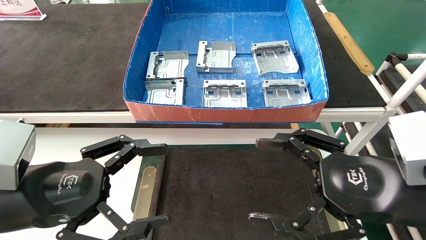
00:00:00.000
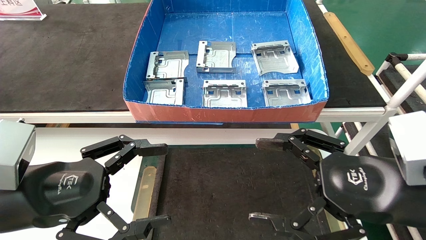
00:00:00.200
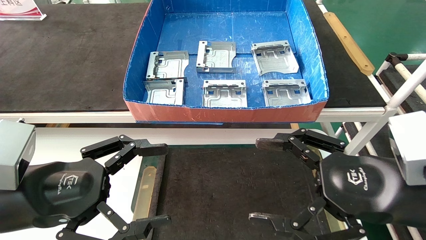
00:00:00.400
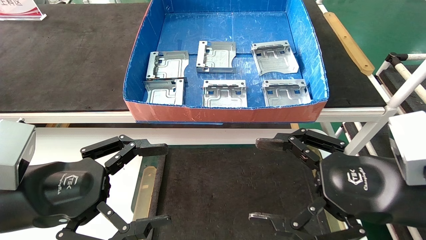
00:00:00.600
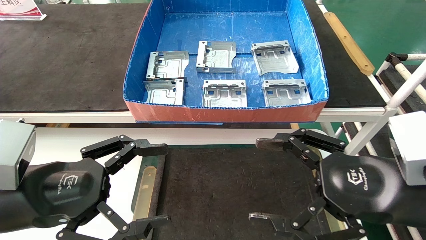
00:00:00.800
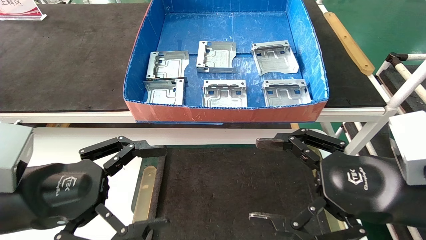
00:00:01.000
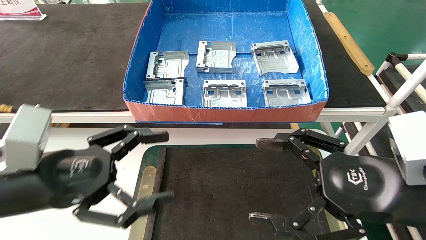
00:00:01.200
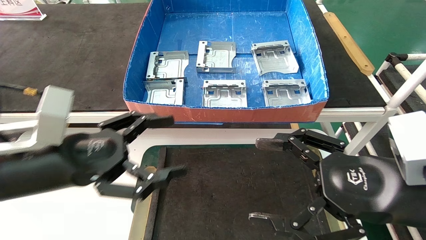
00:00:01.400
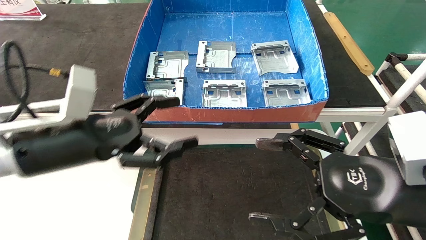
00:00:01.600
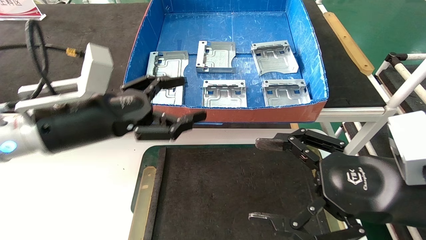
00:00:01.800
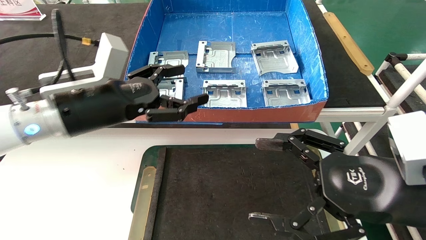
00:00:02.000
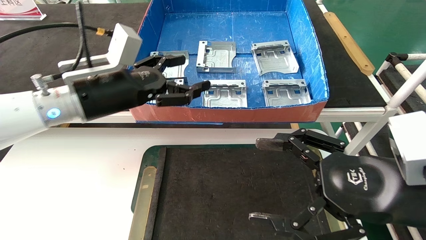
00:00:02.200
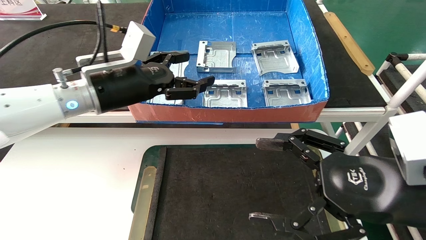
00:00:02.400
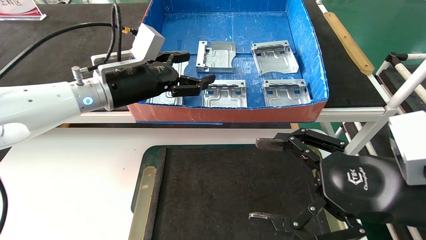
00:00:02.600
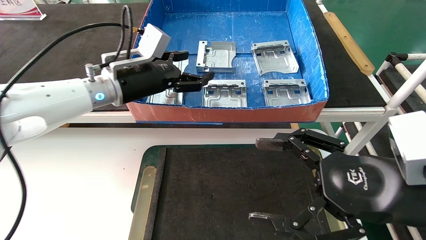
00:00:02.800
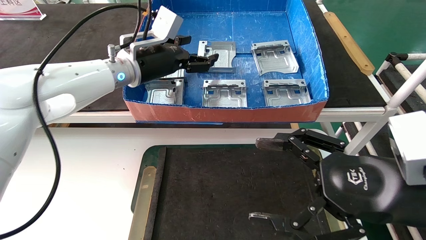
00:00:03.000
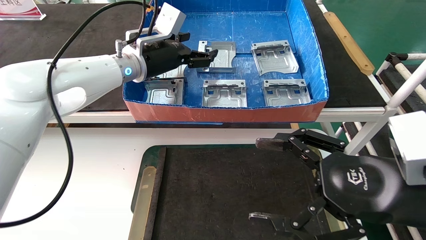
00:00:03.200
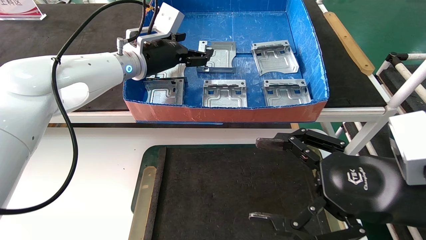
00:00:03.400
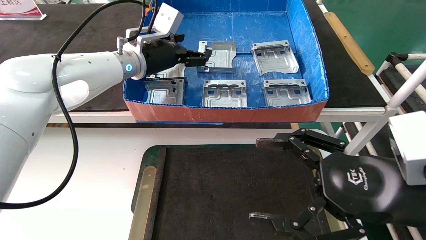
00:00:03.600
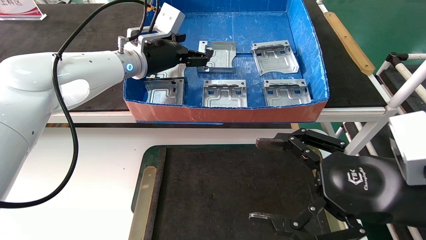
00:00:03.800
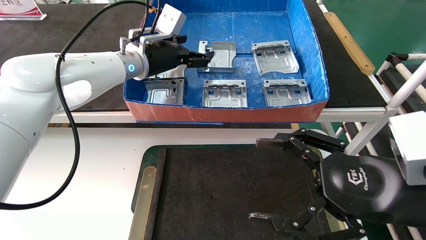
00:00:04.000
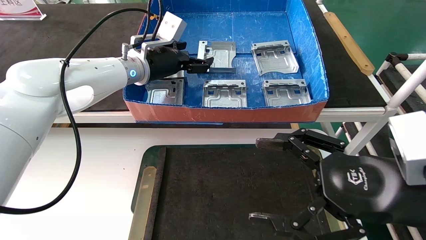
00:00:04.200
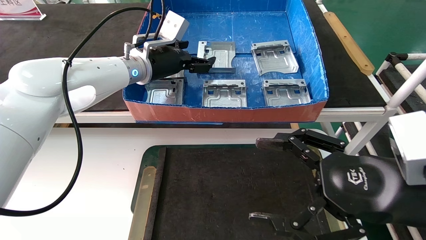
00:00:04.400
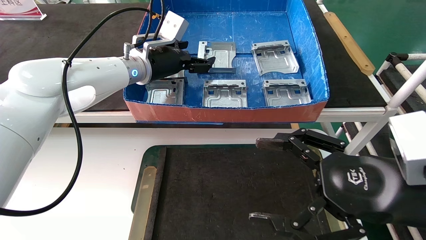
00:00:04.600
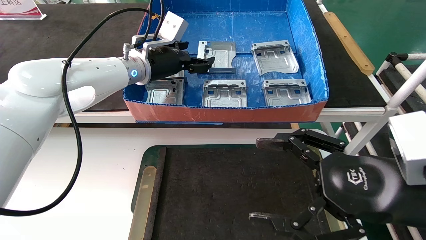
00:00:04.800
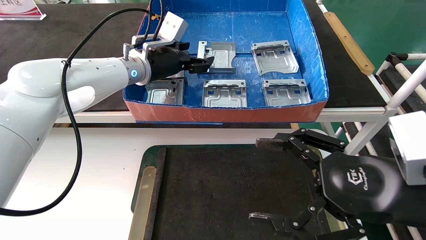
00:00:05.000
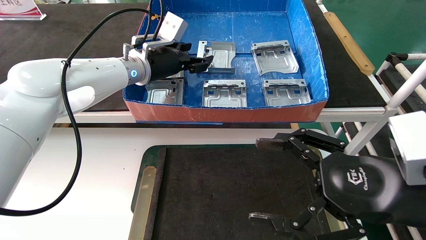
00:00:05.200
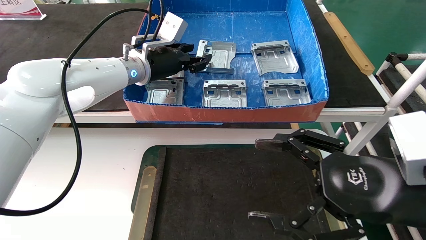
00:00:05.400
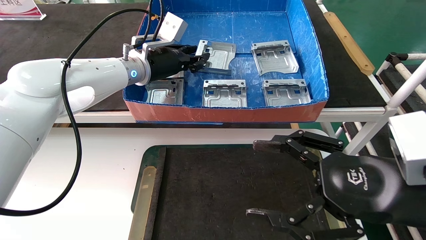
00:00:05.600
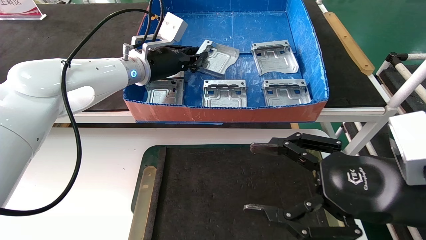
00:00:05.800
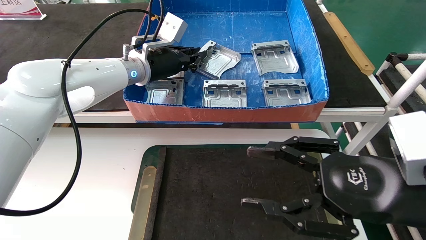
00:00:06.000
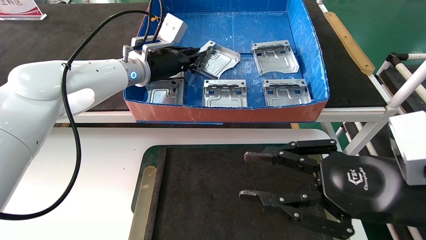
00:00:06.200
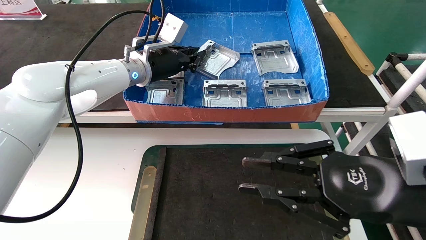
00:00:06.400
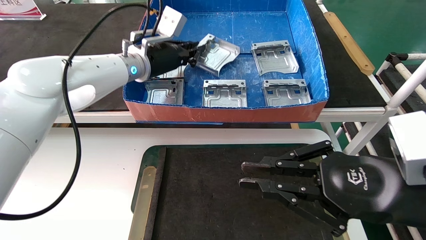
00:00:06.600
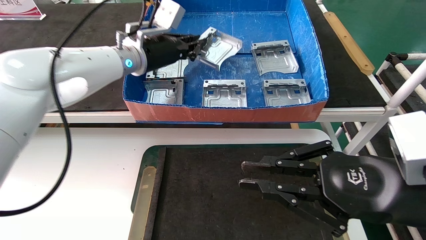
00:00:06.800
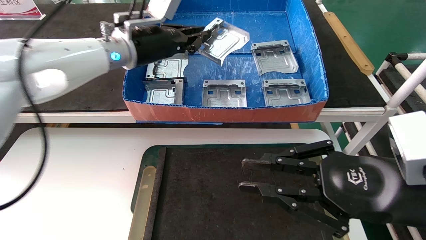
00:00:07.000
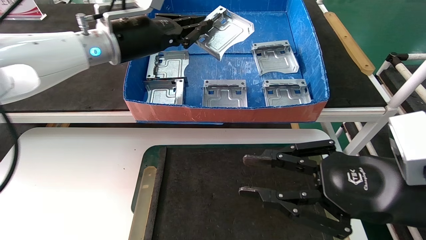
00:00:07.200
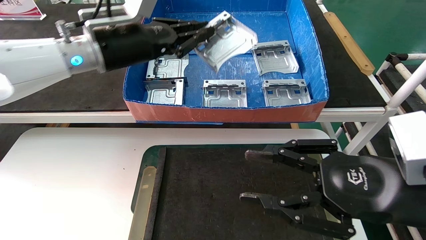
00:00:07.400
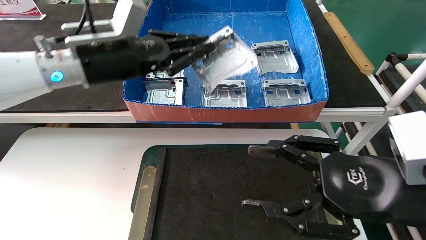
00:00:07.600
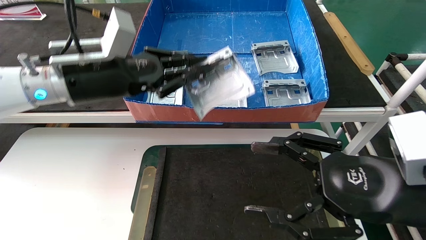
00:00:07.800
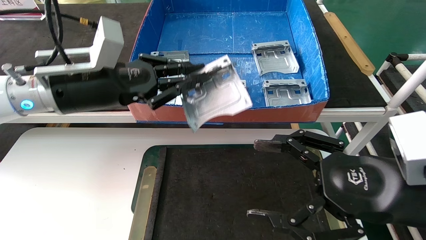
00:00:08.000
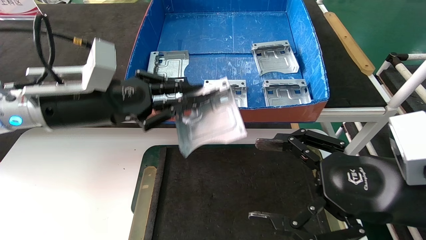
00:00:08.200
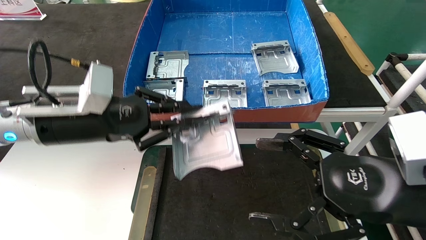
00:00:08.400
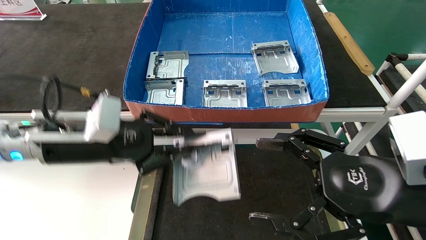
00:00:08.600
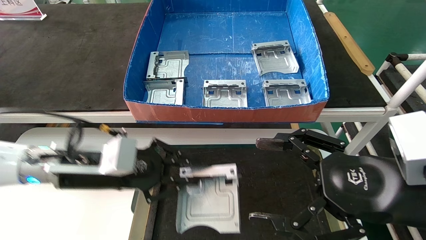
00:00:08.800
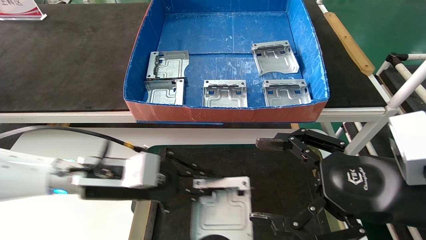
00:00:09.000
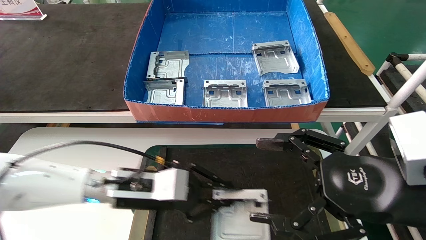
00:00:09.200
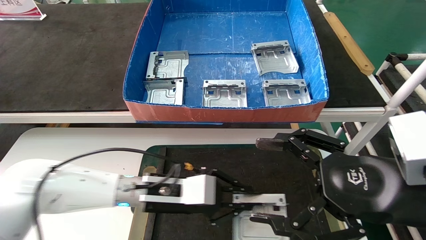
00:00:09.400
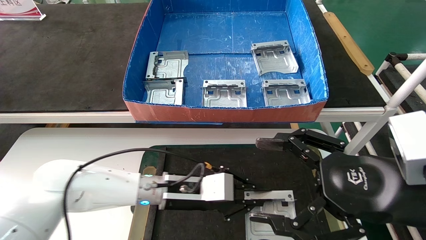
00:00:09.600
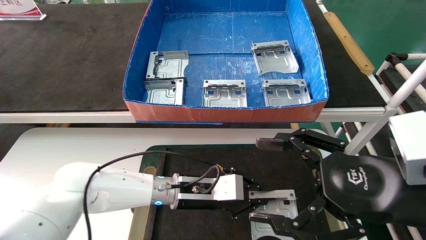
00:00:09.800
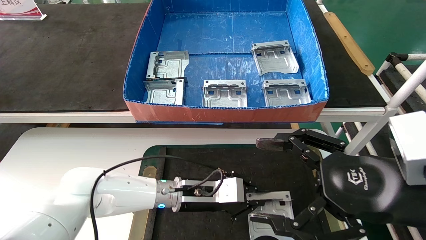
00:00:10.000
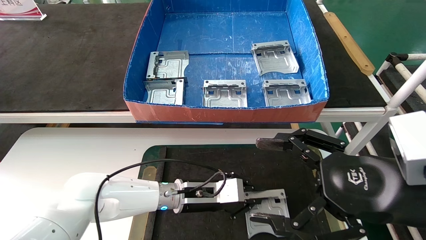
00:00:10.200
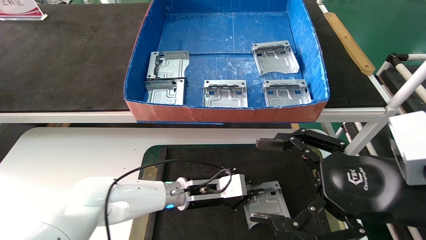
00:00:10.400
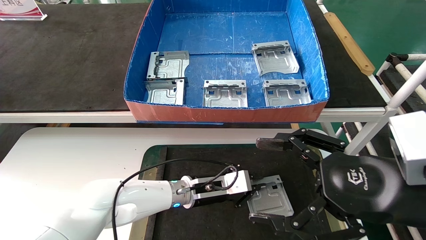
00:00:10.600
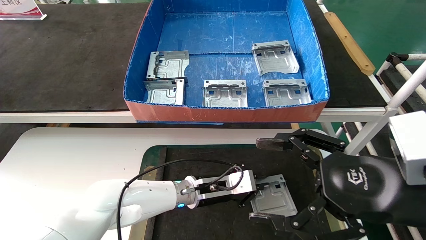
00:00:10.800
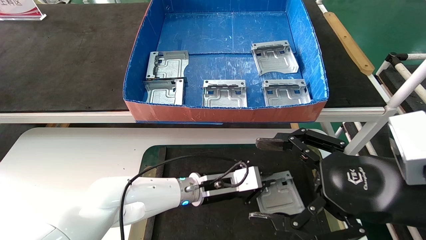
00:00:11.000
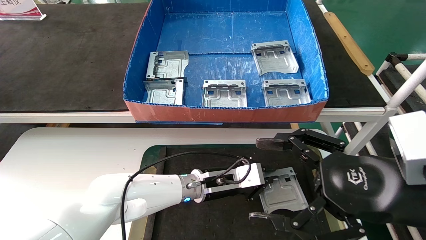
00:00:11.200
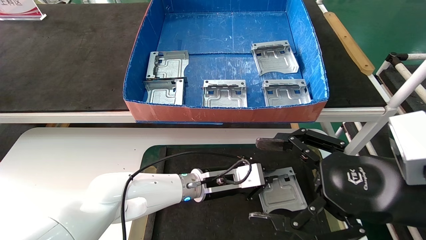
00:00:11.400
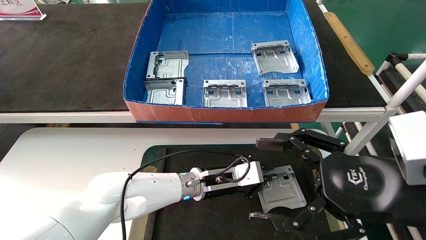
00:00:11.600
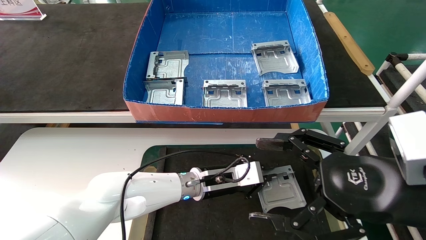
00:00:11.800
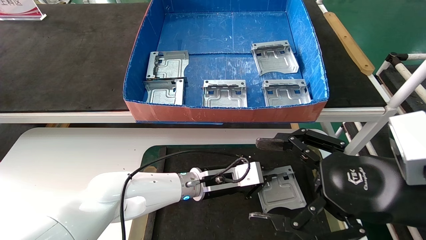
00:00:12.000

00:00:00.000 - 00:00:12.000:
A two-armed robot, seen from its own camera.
Task of the whole recording: take the accessories out of the box and place them on the table.
Step, 00:00:01.200 - 00:00:06.400: Pick up the hard drive bracket from the feeding area.
00:00:00.000 - 00:00:01.600: The left gripper heads forward, covering some 5 cm.
00:00:01.600 - 00:00:03.000: The left gripper goes about 15 cm forward.
00:00:03.000 - 00:00:04.400: The left gripper ends up about 5 cm from where it was.
00:00:04.400 - 00:00:06.000: The left gripper closes.
00:00:06.000 - 00:00:07.600: The right gripper closes up. The left gripper is displaced backward by about 5 cm, and closes up.
00:00:07.600 - 00:00:09.000: The right gripper opens its fingers; the left gripper moves downward and backward, some 20 cm.
00:00:09.000 - 00:00:10.400: The left gripper goes some 25 cm to the right, downward and forward.
00:00:10.400 - 00:00:12.000: The left gripper changes place by about 5 cm.

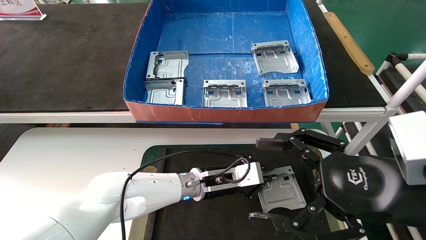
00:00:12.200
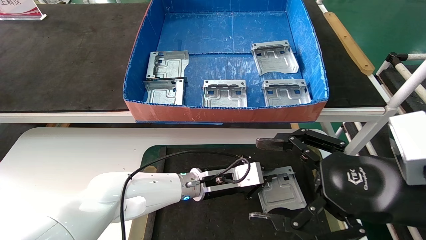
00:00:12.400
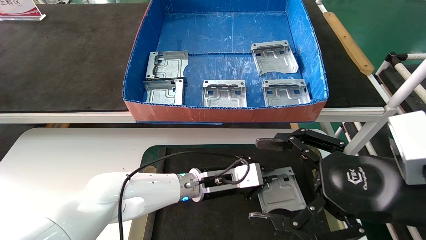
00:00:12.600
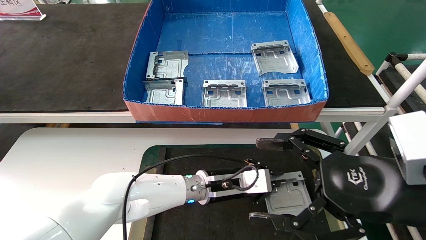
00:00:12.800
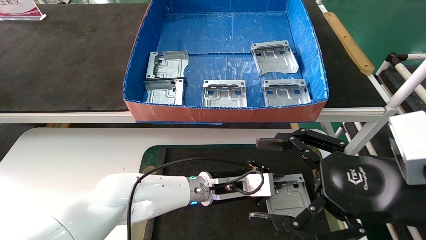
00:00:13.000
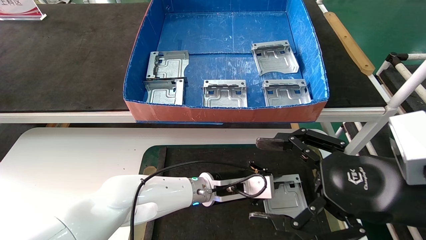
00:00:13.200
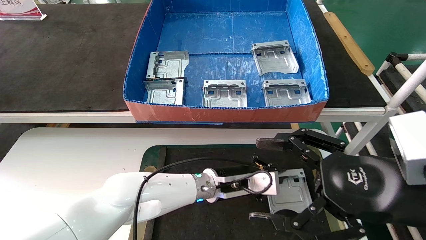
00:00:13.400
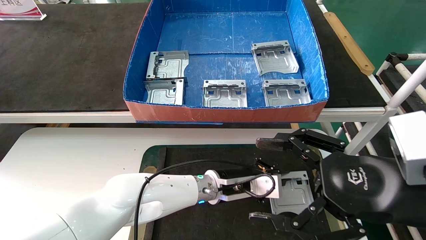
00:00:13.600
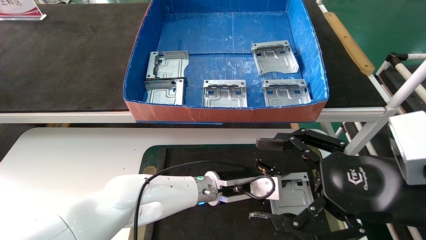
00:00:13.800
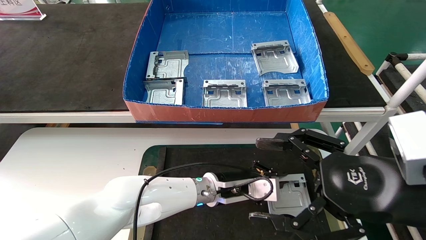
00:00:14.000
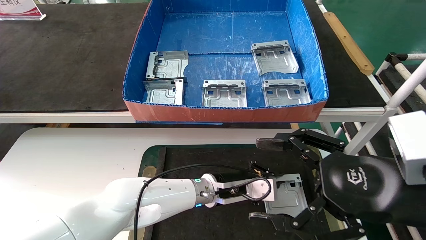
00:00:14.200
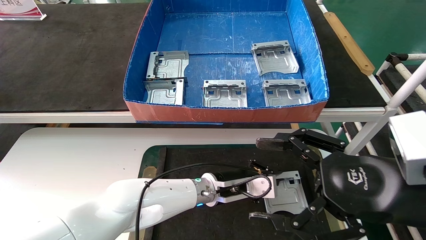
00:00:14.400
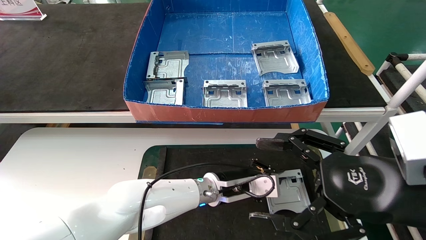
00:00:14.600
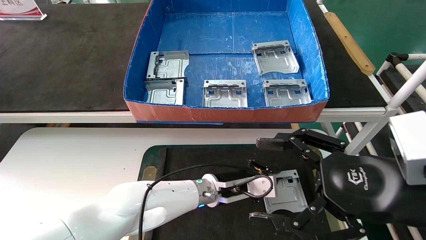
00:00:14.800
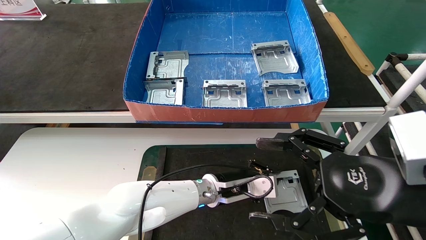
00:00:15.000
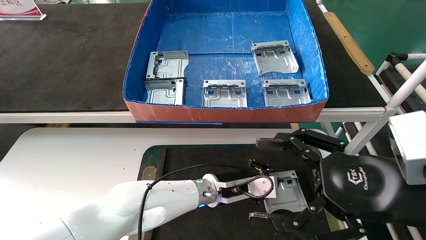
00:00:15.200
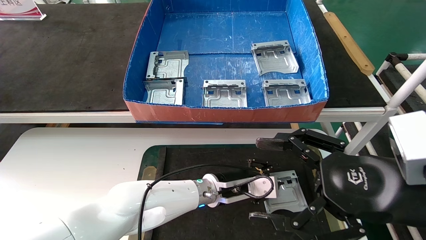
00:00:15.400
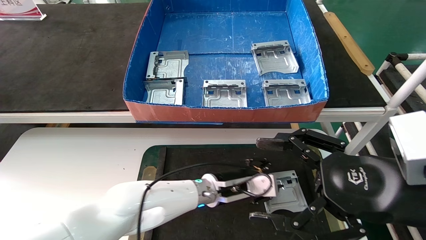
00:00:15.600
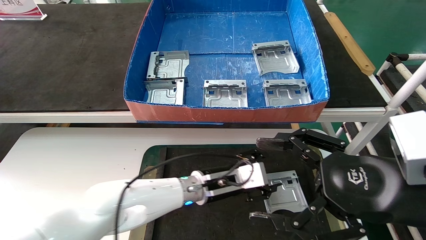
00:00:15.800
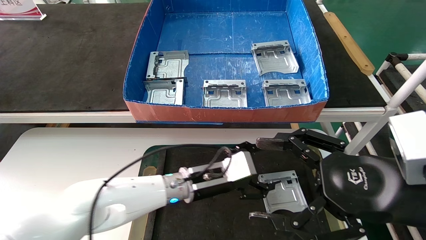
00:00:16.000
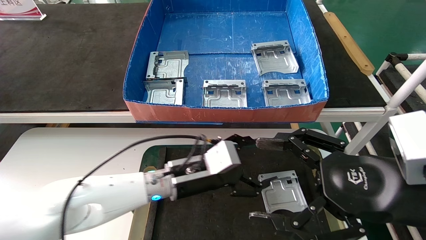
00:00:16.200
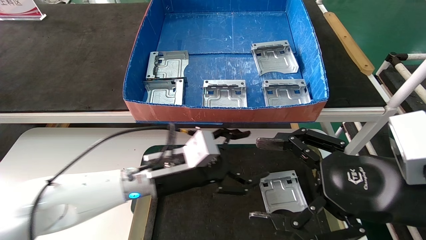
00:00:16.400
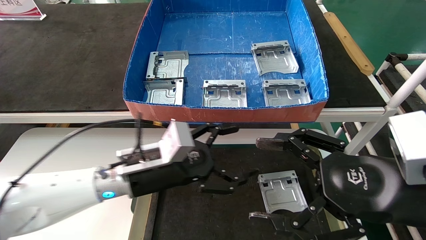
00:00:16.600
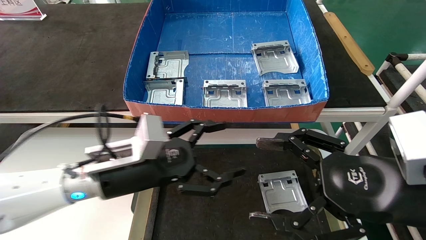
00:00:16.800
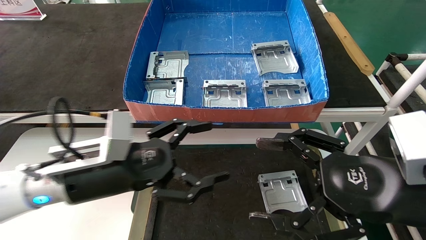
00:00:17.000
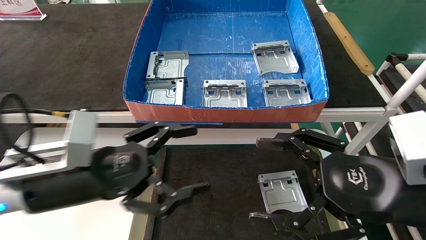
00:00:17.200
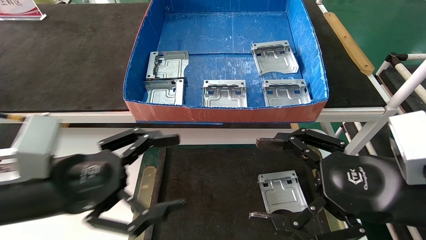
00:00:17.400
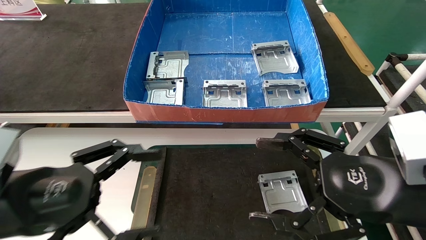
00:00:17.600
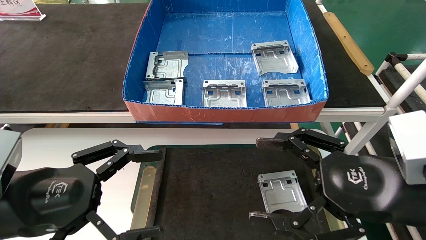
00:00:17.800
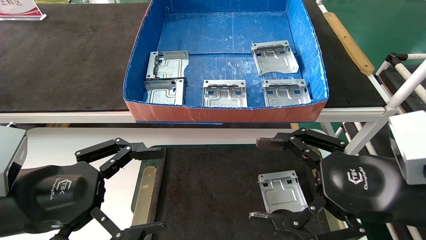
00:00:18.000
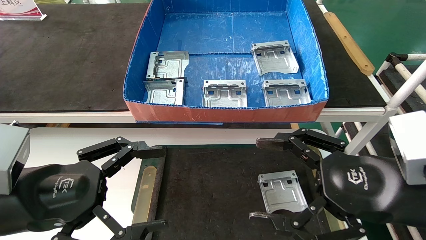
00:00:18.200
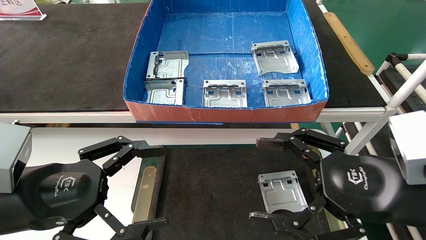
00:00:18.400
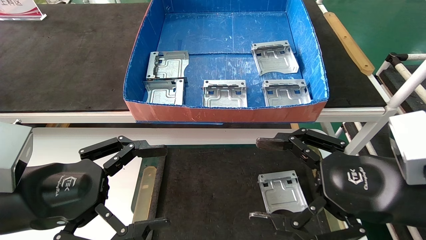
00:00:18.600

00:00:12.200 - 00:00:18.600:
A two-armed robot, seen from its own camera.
Task of the whole recording: take the accessories out of the box and place them on the table.
Step, 00:00:12.200 - 00:00:15.600: Place the hard drive bracket into the box.
00:00:12.200 - 00:00:15.400: The grippers move only a little.
00:00:15.400 - 00:00:17.000: The left gripper heads to the left, upward and backward, covering roughly 20 cm, and opens up.
00:00:17.000 - 00:00:18.600: The left gripper goes about 20 cm backward and to the left.
